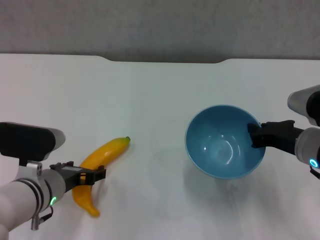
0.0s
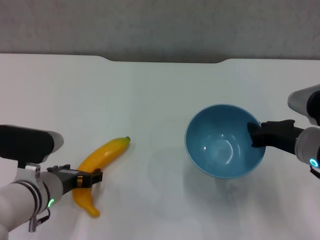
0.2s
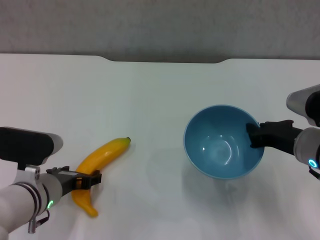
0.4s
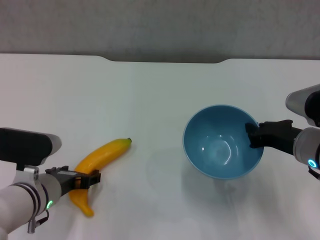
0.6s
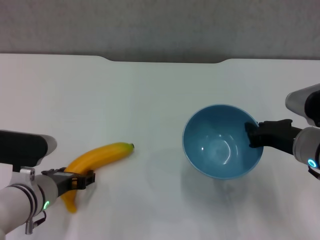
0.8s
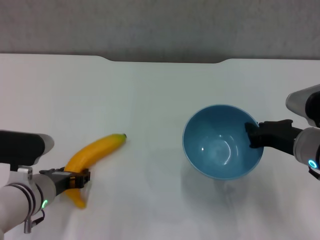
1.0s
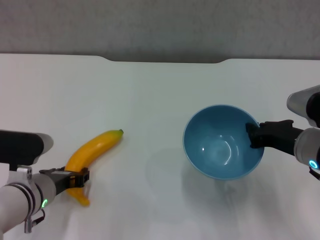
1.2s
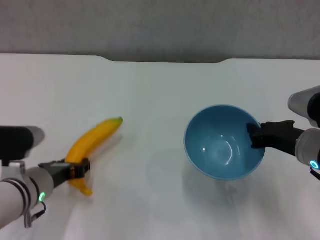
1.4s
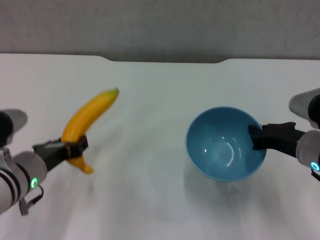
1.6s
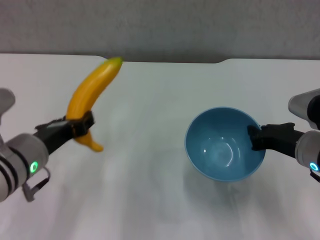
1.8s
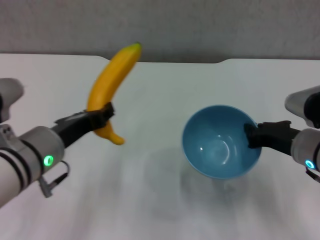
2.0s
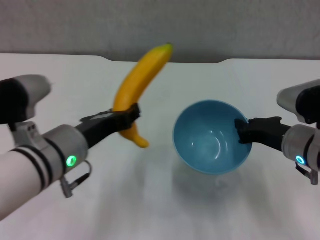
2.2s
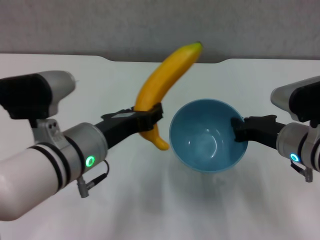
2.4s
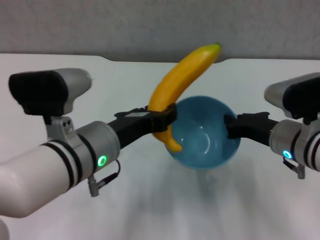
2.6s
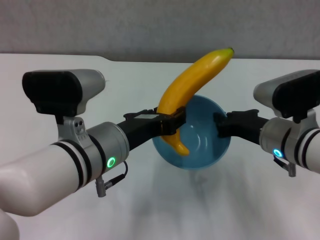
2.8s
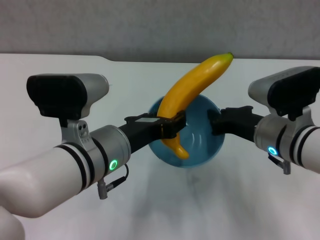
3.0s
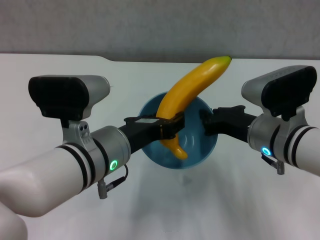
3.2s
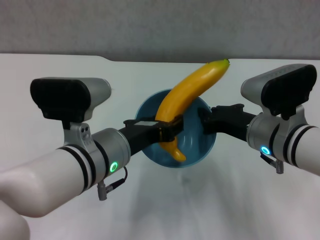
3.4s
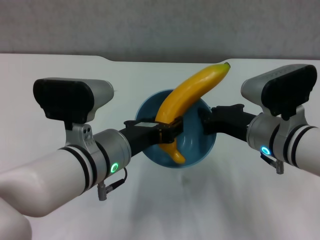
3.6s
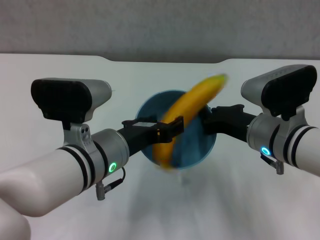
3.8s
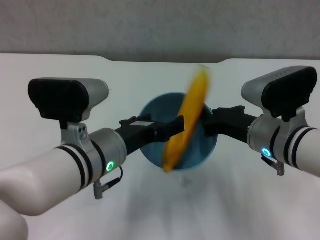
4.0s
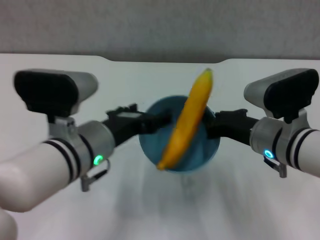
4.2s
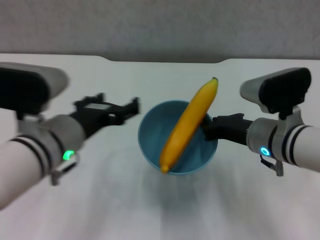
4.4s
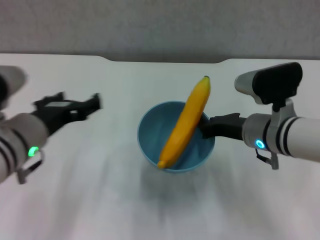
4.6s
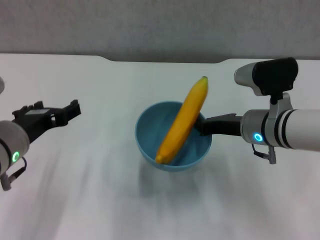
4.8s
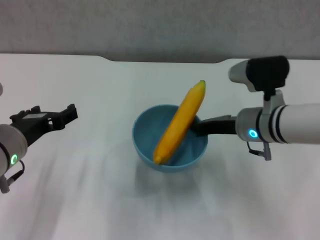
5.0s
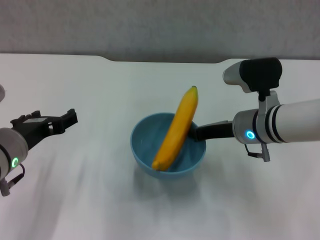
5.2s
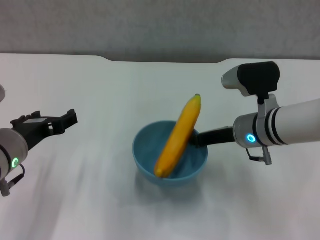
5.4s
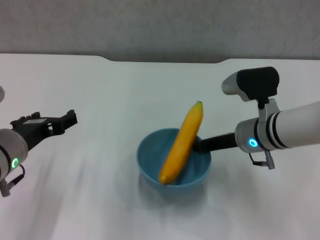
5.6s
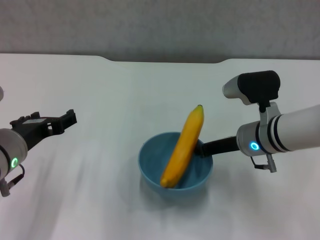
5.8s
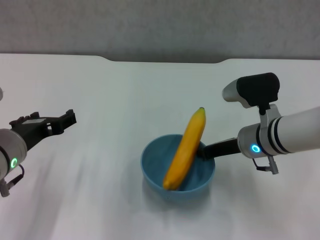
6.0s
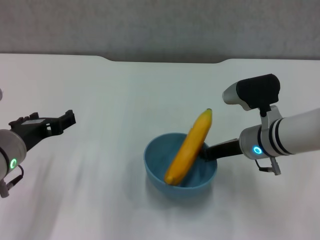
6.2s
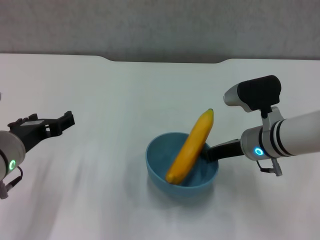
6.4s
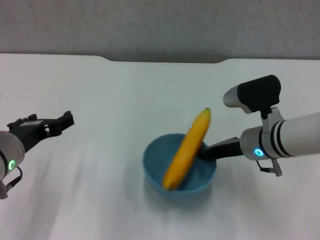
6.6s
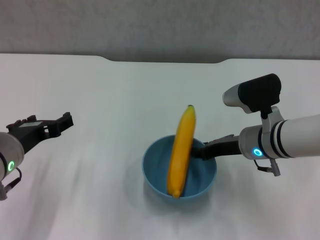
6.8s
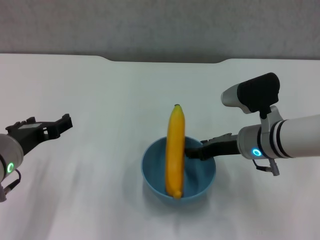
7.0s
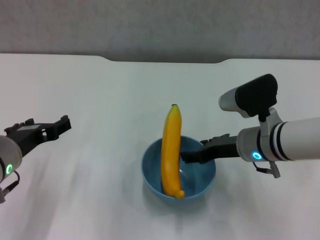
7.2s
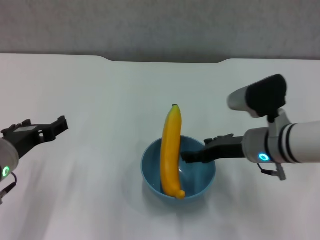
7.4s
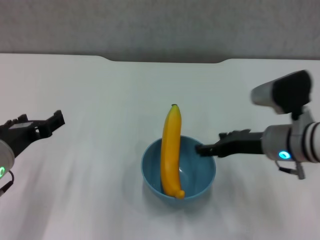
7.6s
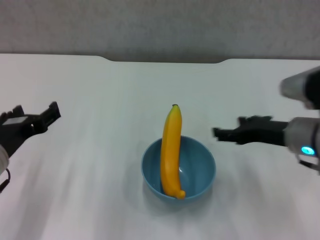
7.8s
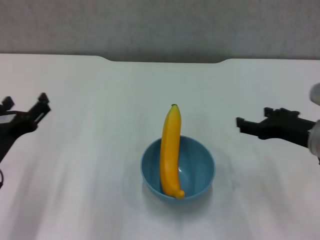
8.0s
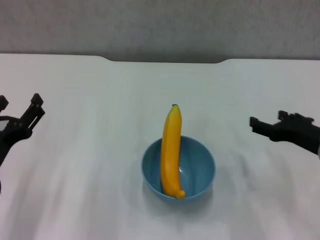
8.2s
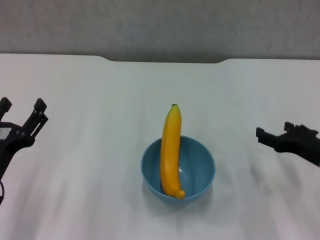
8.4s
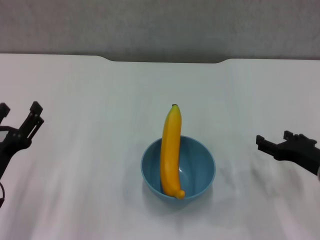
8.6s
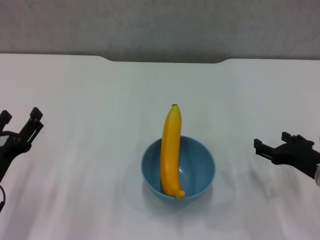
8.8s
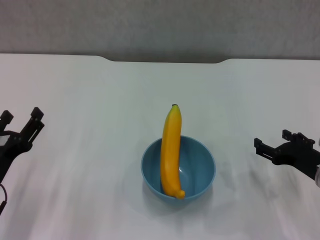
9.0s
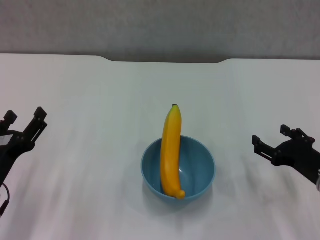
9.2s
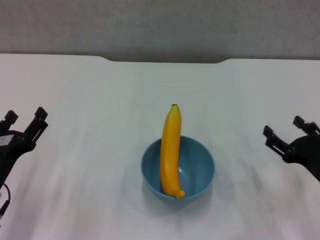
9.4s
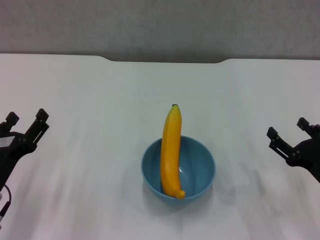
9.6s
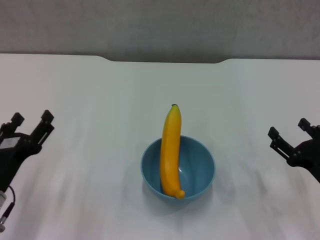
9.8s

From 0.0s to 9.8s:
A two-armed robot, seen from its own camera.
Step, from 0.0s to 1.0s: Grasp the banana with left gripper.
Step, from 1.2s to 3.8s: Place the banana in the blue bowl with left gripper.
Step, from 4.2s to 7.6s: Place the bowl on the table with right gripper.
From 0.0s to 1.4s: The left gripper closes its fingers.
From 1.4s to 2.8s: The left gripper moves to the right and upward, about 15 cm. Meanwhile the right gripper ends up some 5 cm from where it was.
From 2.8s to 4.2s: The left gripper opens.
From 4.2s to 5.6s: The right gripper heads forward, covering about 5 cm; the left gripper shifts roughly 10 cm to the left.
From 5.6s to 7.0s: The right gripper opens up.
From 7.0s to 8.4s: The left gripper is displaced backward and downward by about 10 cm. Meanwhile the right gripper shifts roughly 15 cm to the right and backward, and opens up.
From 8.4s to 9.8s: The right gripper heads backward, covering approximately 5 cm.

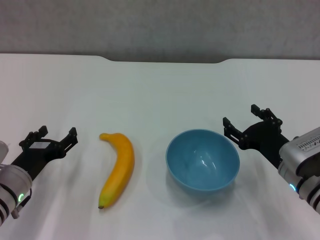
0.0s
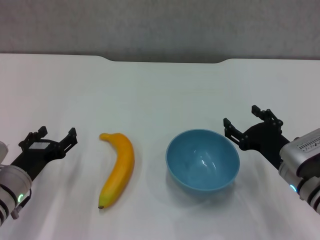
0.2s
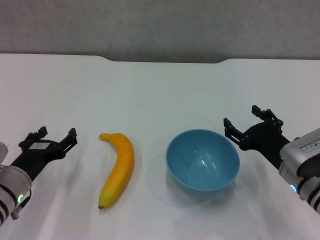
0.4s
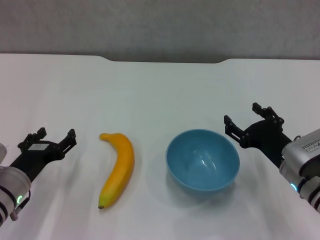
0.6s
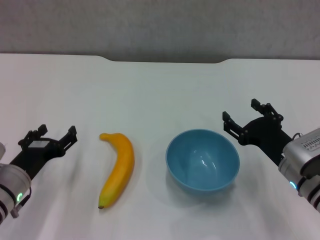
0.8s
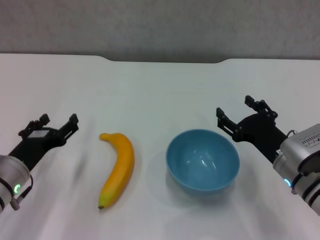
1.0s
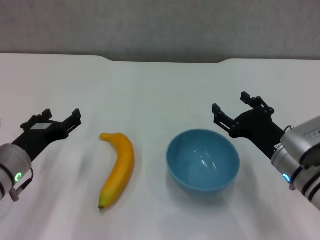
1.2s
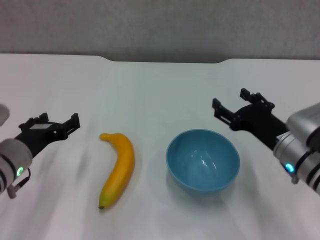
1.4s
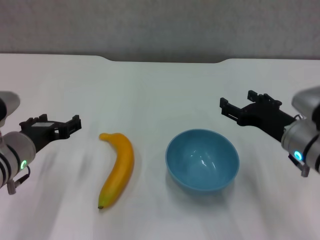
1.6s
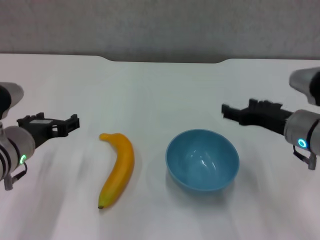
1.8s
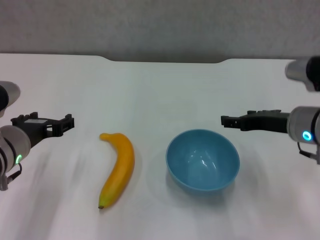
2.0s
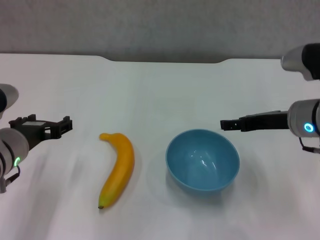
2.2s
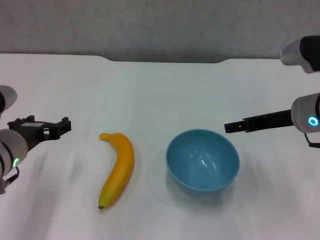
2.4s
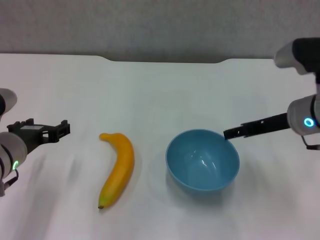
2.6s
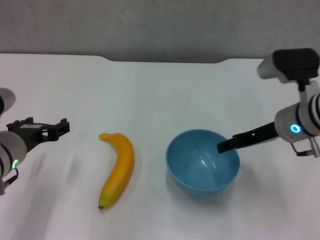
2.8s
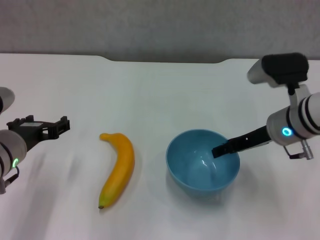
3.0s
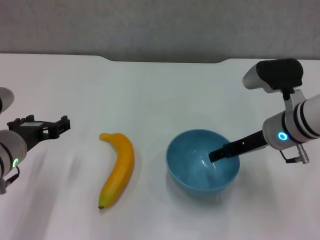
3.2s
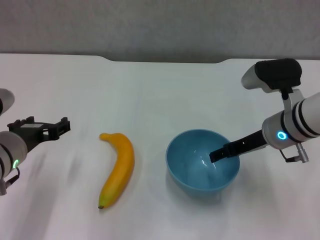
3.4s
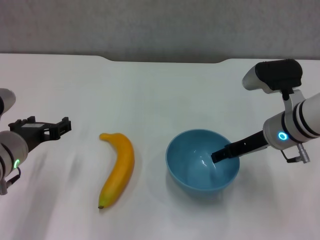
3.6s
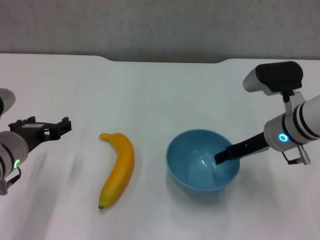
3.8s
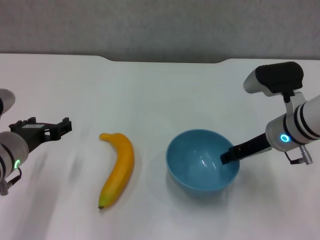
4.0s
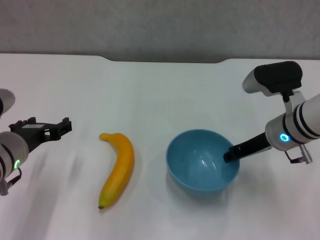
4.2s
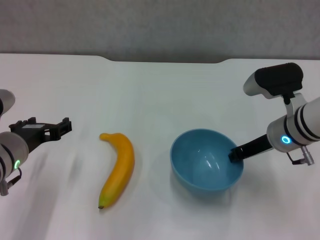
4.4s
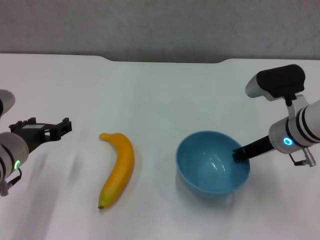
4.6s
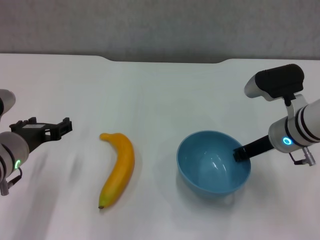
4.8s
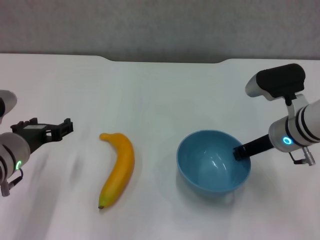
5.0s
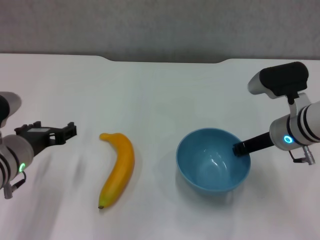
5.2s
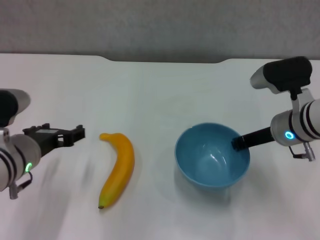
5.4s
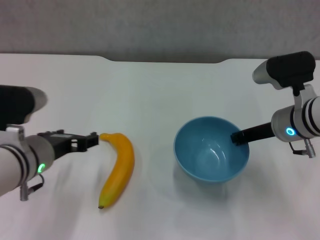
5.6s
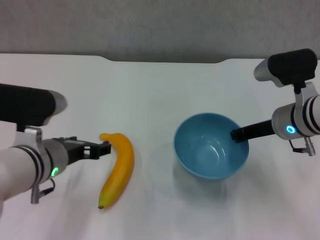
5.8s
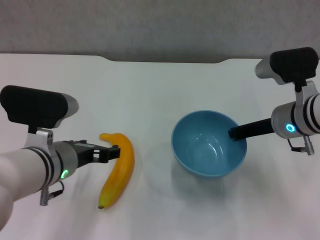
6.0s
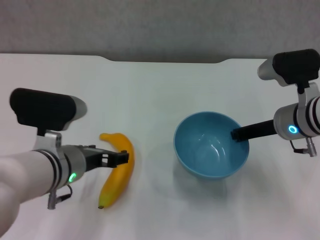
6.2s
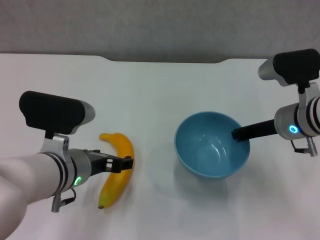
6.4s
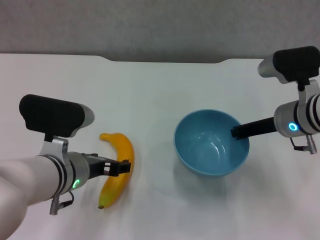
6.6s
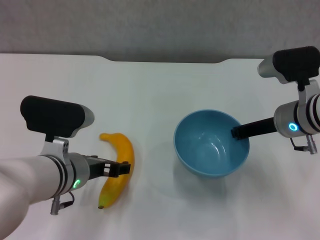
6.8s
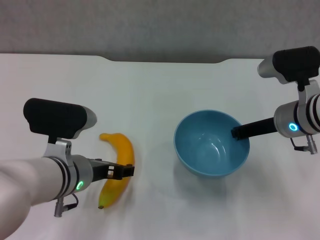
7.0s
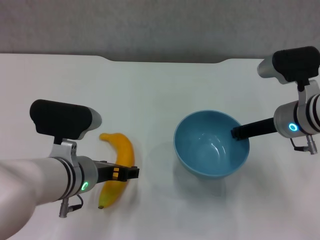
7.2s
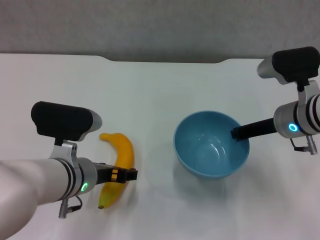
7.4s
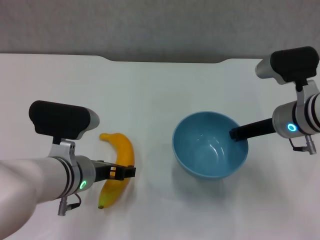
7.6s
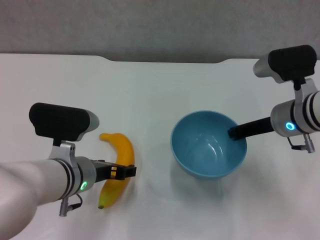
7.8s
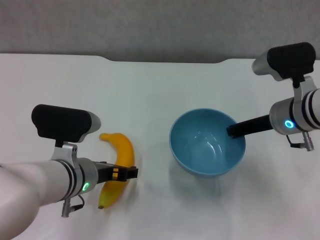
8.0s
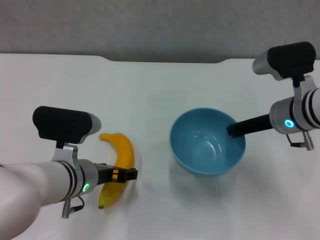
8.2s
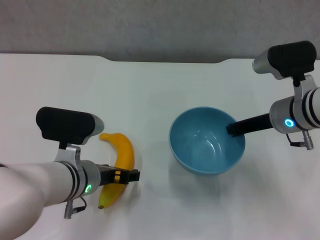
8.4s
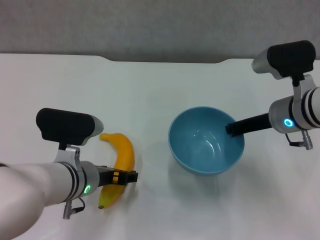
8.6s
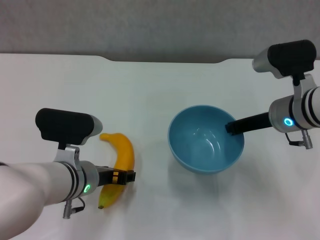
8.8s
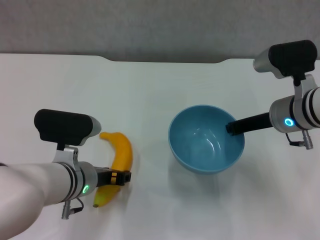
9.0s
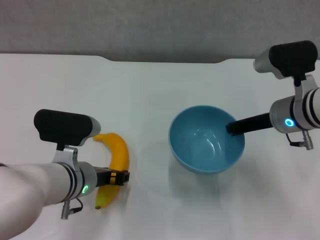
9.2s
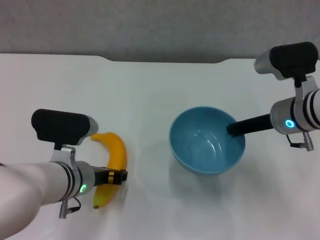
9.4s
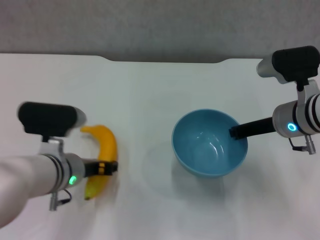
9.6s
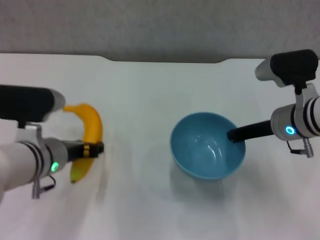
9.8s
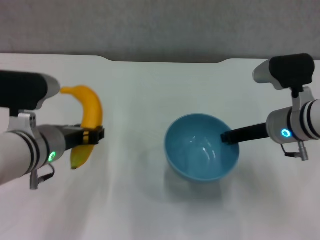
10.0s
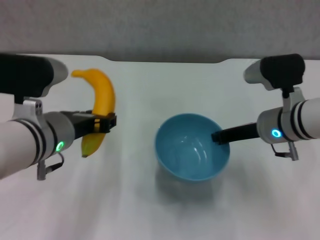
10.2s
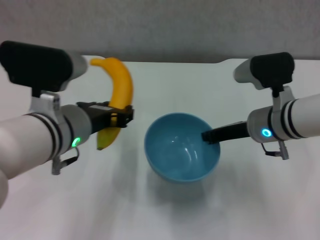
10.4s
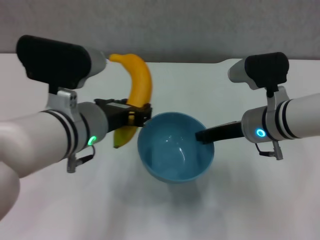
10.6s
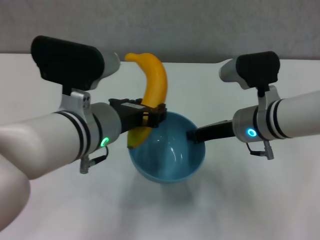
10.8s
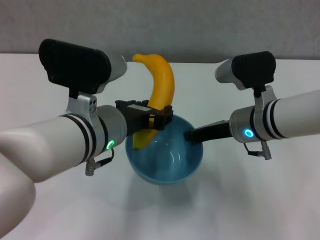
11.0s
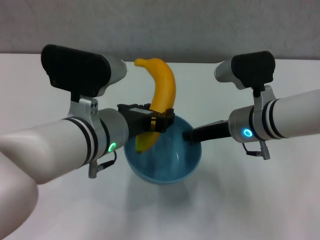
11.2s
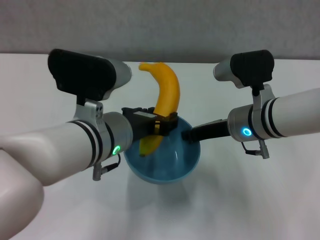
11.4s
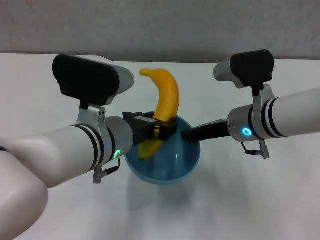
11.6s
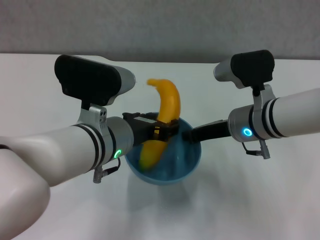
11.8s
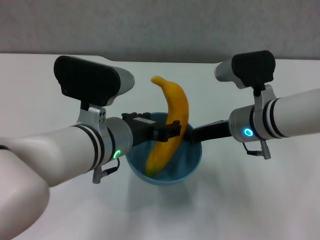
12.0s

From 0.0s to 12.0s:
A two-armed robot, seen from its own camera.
Step, from 0.0s to 5.0s: Grasp the blue bowl with right gripper.
Step, from 5.2s to 6.0s: Lift the blue bowl with right gripper.
Step, from 6.2s to 9.0s: Grasp the banana with left gripper.
From 0.0s to 1.6s: Both grippers move upward, roughly 5 cm.
From 1.6s to 3.0s: The right gripper heads forward, covering some 5 cm.
From 3.0s to 4.4s: The right gripper closes its fingers.
From 4.4s to 6.0s: The left gripper shifts roughly 5 cm to the right.
From 6.0s to 9.0s: The grippers move only a little.
From 9.0s to 10.4s: The left gripper is displaced upward by approximately 10 cm, and closes up.
From 10.4s to 12.0s: The left gripper opens.
